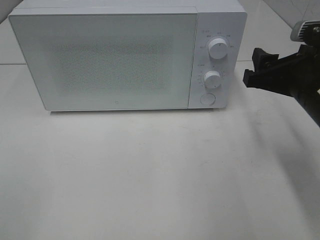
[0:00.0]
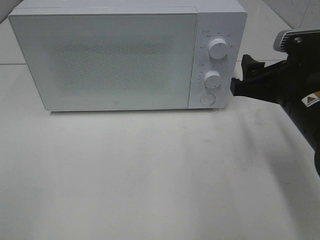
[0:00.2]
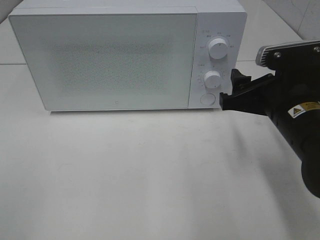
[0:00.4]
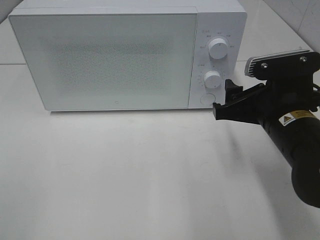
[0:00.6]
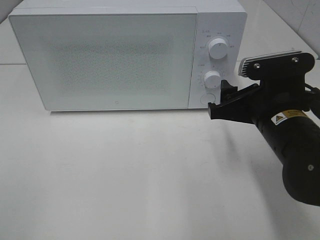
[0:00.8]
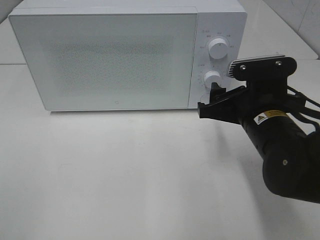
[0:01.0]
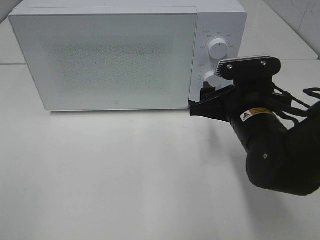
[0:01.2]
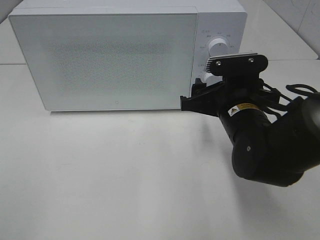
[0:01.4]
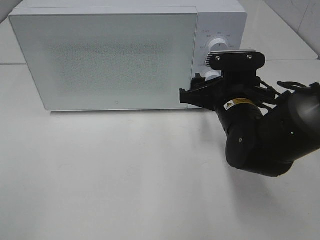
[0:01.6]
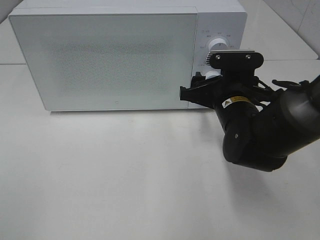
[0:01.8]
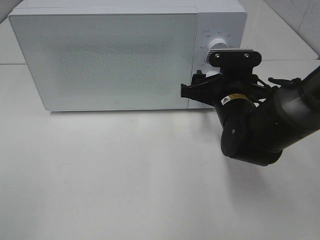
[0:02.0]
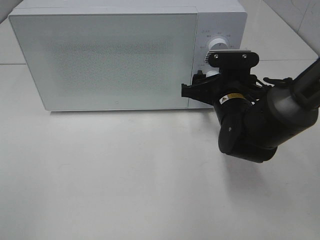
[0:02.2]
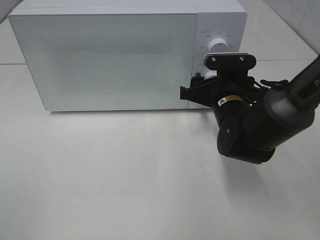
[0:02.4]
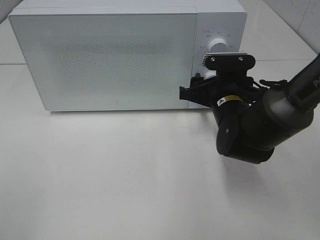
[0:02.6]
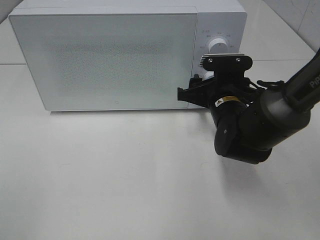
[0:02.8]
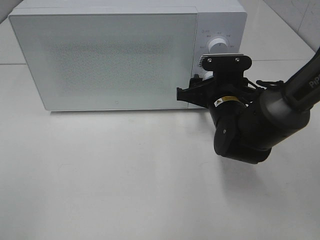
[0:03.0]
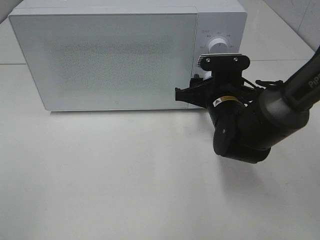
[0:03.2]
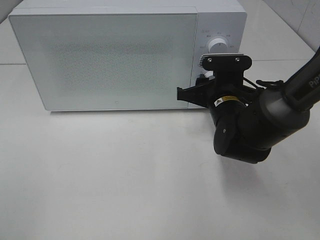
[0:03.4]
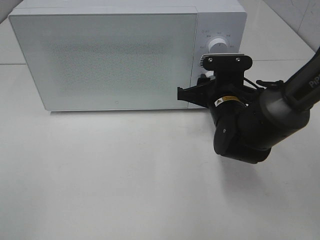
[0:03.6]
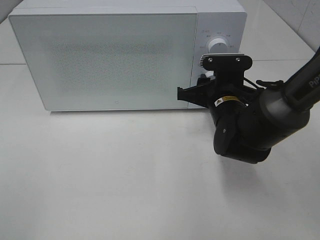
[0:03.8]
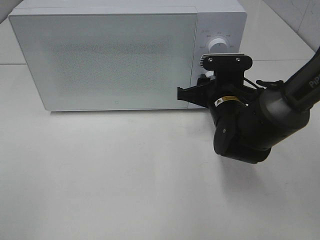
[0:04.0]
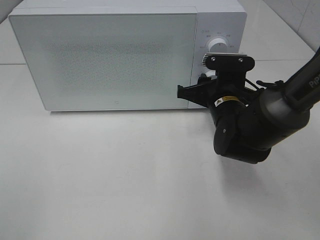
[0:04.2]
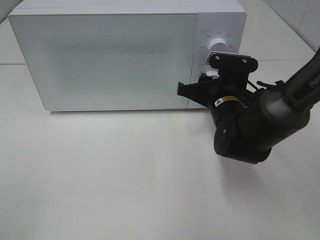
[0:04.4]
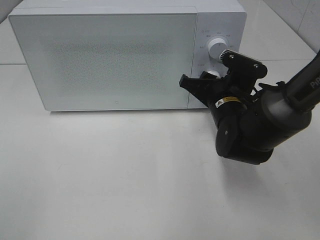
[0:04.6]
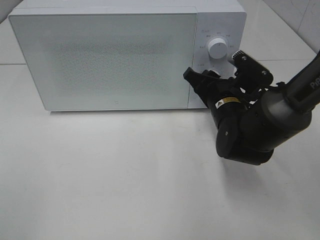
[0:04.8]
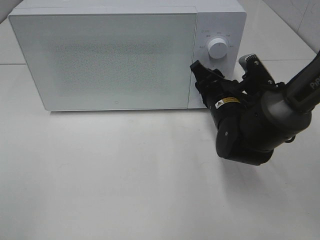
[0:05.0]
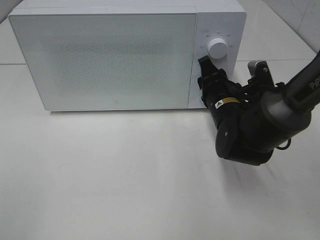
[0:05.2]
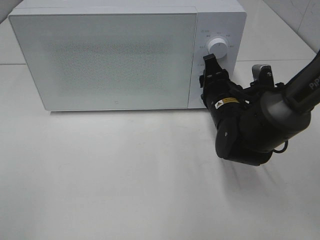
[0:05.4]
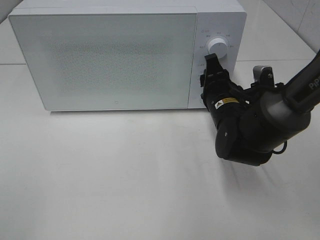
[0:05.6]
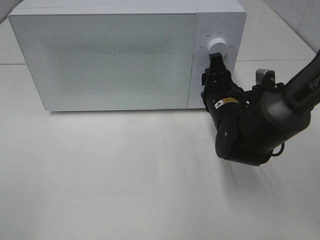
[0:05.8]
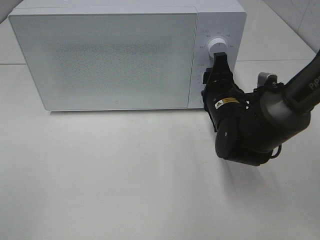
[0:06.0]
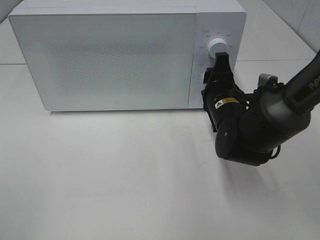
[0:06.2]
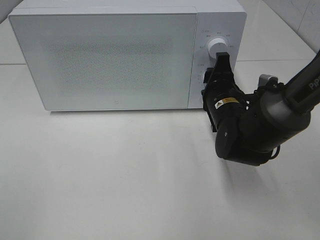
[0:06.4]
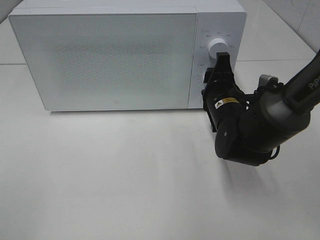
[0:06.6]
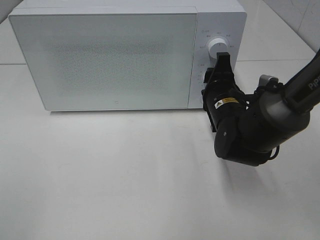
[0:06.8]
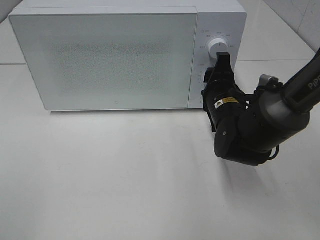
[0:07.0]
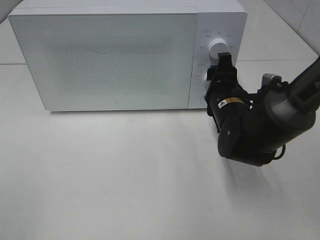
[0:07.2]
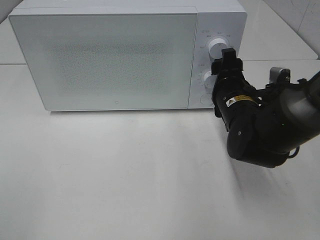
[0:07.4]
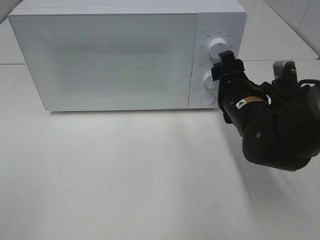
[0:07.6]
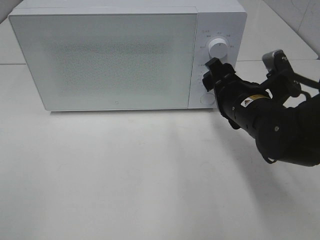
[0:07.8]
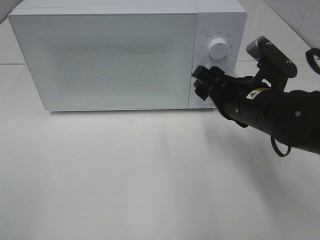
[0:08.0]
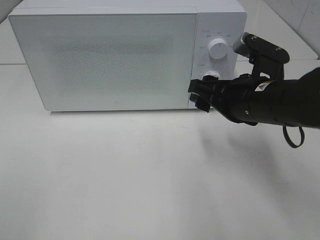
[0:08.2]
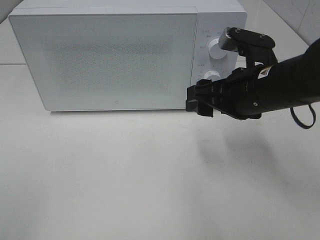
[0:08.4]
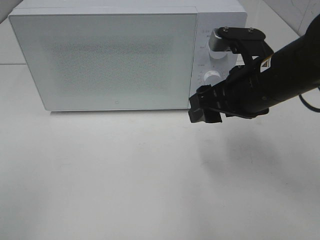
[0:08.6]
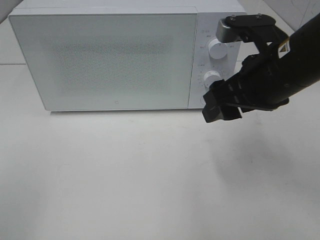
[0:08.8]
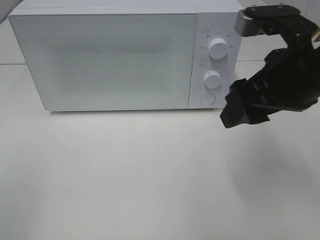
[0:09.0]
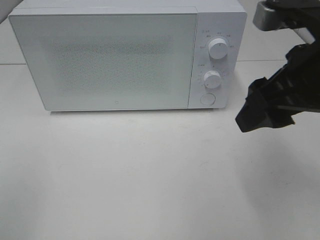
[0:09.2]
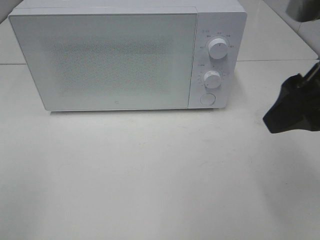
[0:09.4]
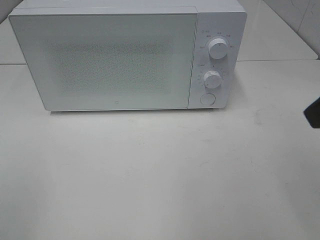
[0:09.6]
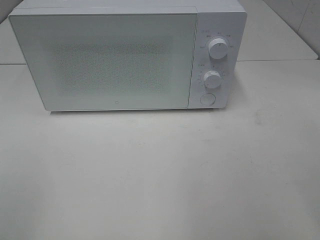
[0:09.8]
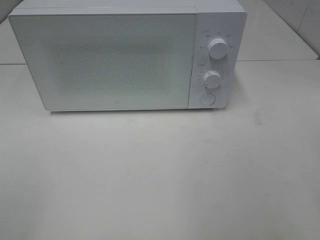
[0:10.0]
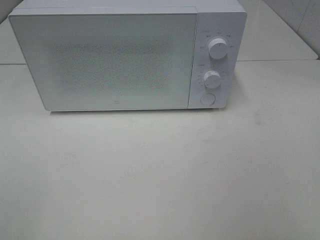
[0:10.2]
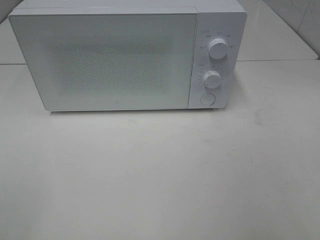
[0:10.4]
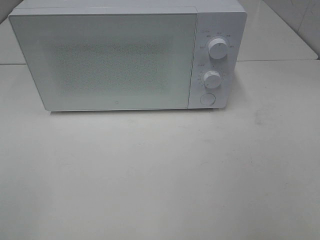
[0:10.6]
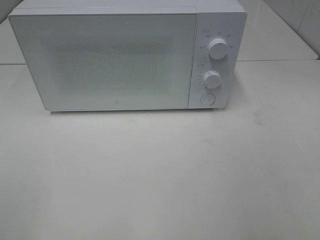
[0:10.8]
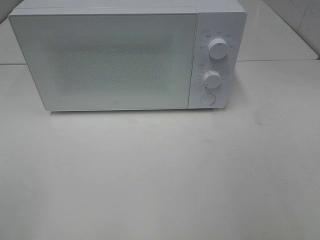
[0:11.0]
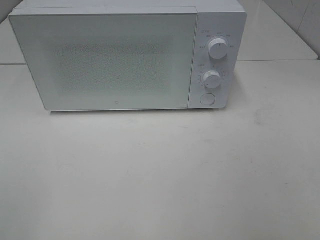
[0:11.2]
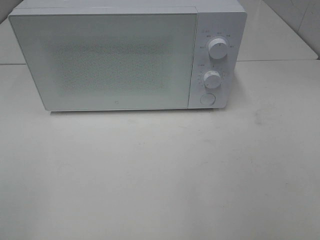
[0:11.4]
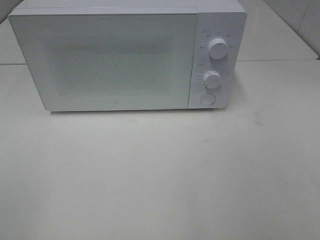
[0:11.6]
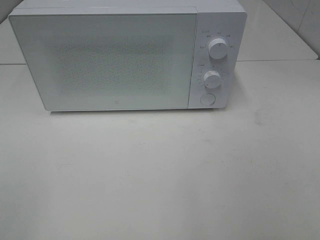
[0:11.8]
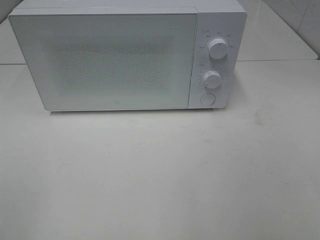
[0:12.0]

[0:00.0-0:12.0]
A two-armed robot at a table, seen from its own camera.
Task of the whole recording: Heat the burger.
Step, 0:00.0 to 0:07.4: Right hand: twist timer button.
0:00.0 to 0:01.6: The right gripper shifts roughly 10 cm to the left, downward and forward.
0:01.6 to 0:04.4: The grippers make only small movements.
0:06.0 to 0:07.6: There are only small adjustments of the grippers.
0:07.6 to 0:09.0: The right gripper heads upward and backward, covering approximately 15 cm.
0:09.0 to 0:10.4: The right gripper shifts approximately 20 cm backward and to the right.

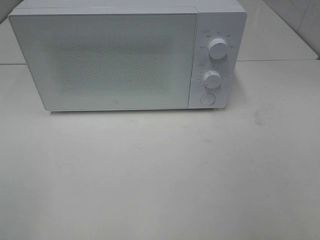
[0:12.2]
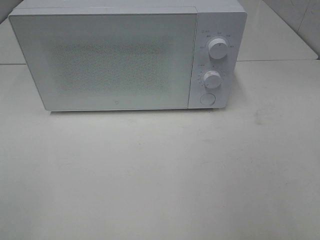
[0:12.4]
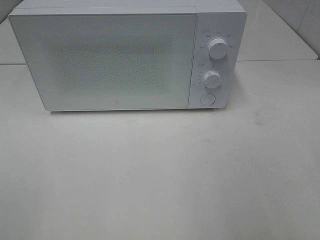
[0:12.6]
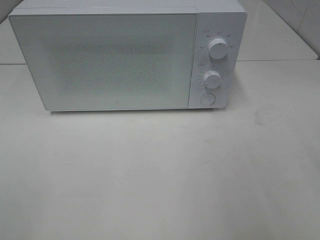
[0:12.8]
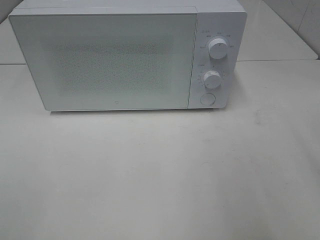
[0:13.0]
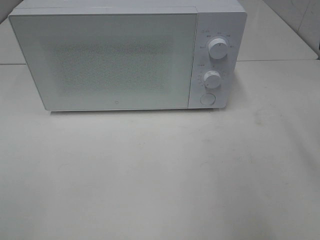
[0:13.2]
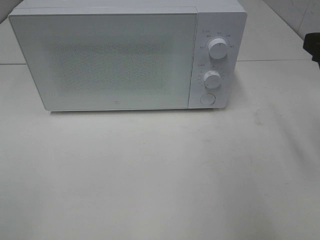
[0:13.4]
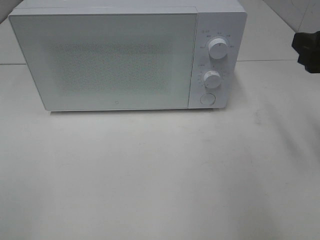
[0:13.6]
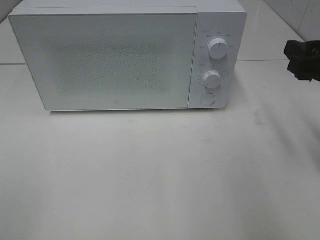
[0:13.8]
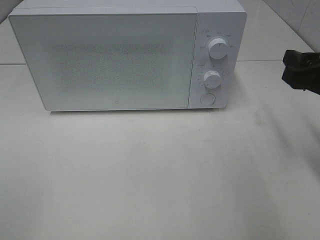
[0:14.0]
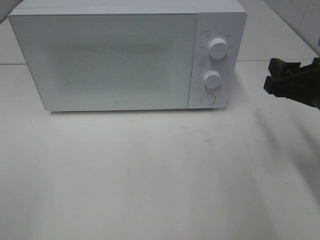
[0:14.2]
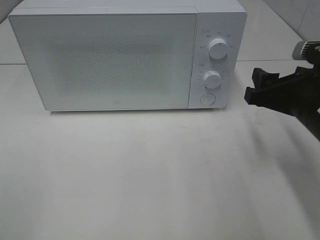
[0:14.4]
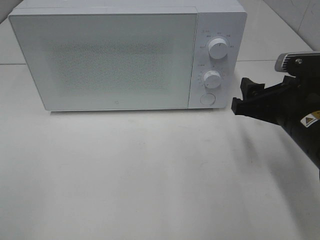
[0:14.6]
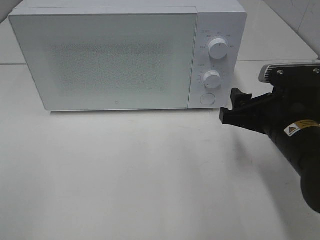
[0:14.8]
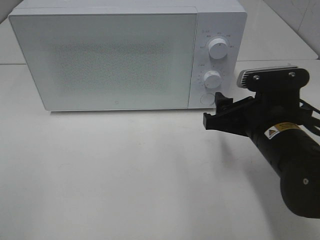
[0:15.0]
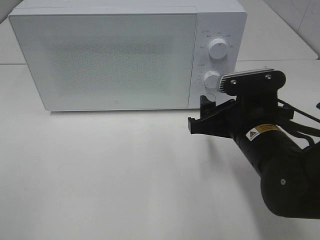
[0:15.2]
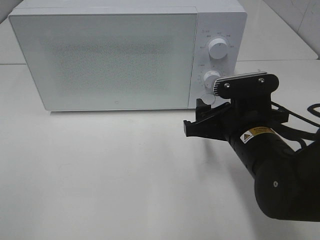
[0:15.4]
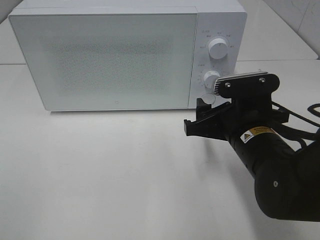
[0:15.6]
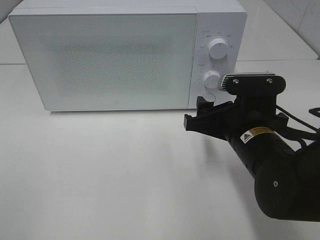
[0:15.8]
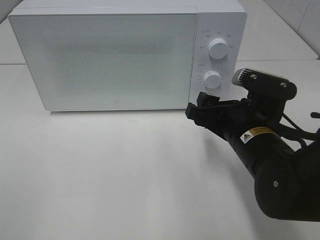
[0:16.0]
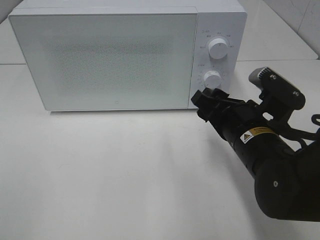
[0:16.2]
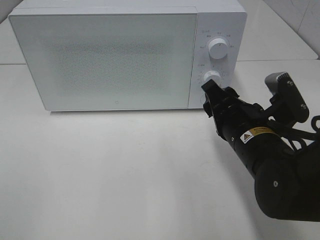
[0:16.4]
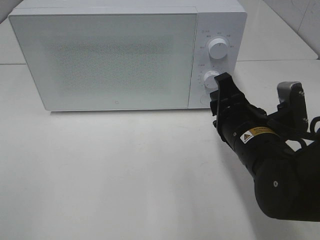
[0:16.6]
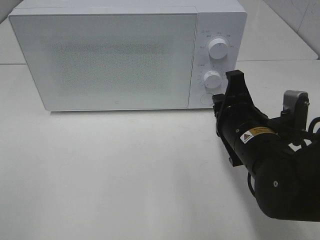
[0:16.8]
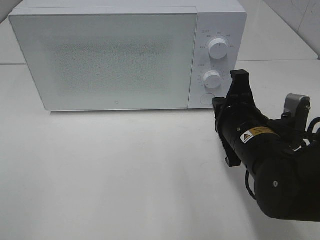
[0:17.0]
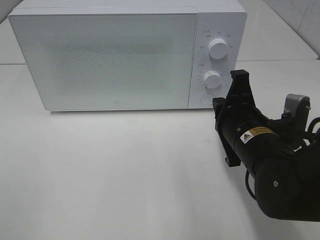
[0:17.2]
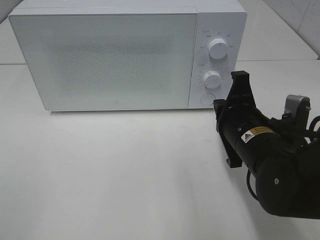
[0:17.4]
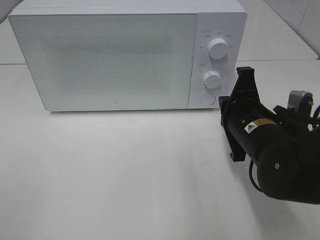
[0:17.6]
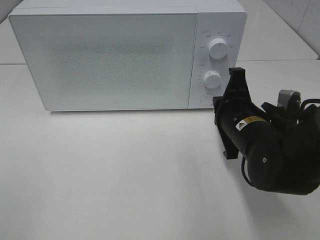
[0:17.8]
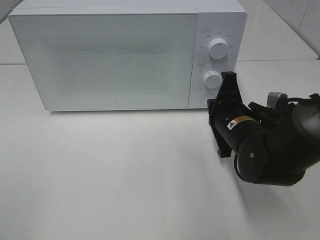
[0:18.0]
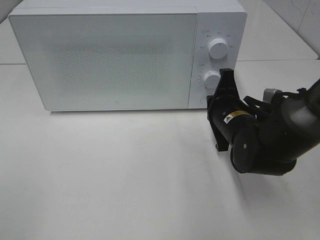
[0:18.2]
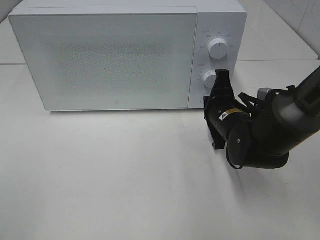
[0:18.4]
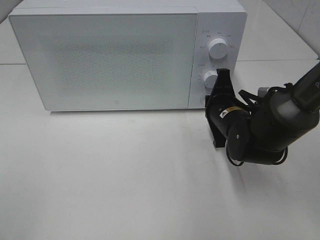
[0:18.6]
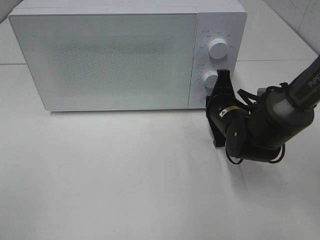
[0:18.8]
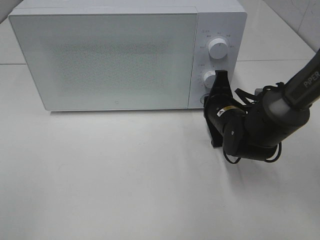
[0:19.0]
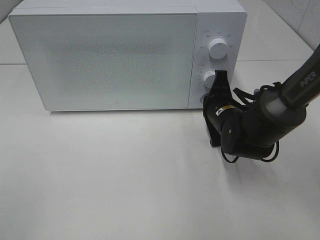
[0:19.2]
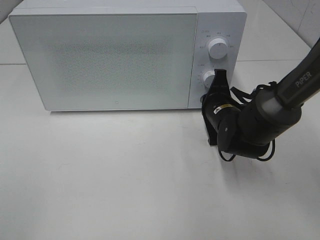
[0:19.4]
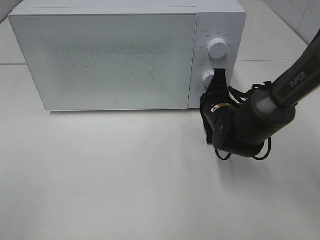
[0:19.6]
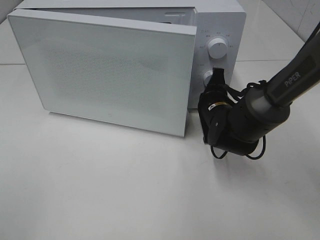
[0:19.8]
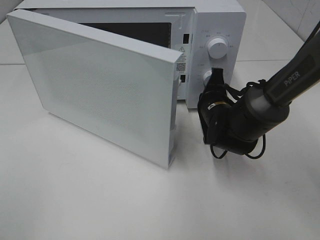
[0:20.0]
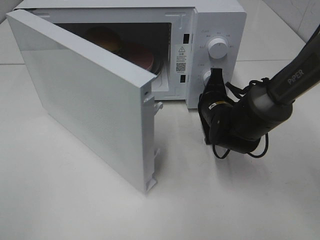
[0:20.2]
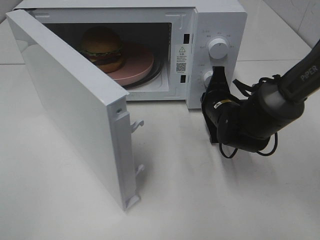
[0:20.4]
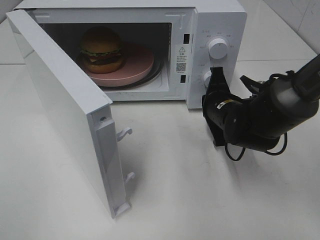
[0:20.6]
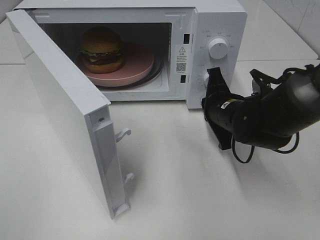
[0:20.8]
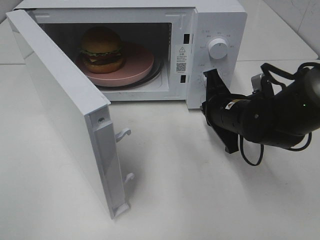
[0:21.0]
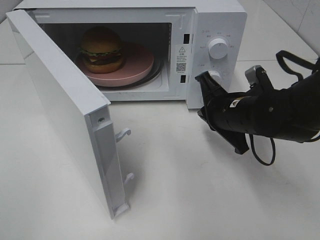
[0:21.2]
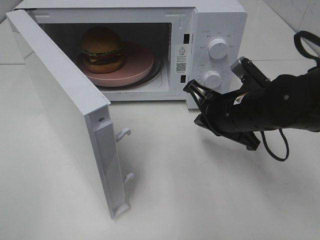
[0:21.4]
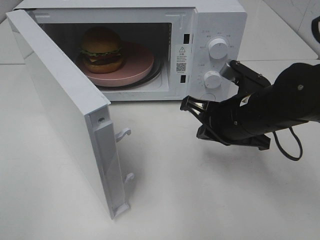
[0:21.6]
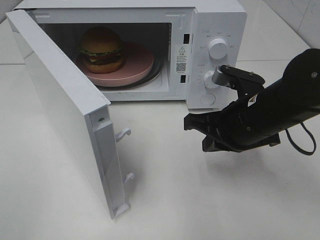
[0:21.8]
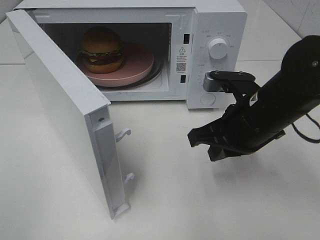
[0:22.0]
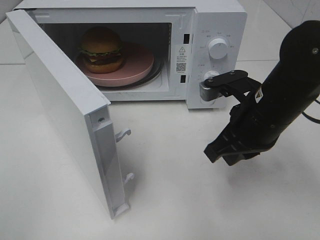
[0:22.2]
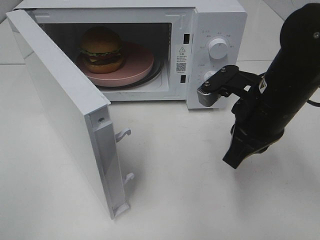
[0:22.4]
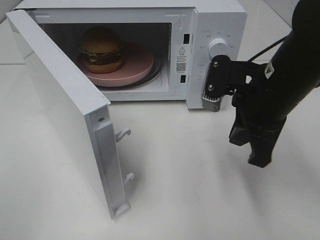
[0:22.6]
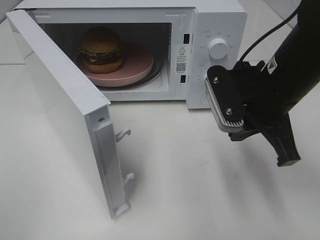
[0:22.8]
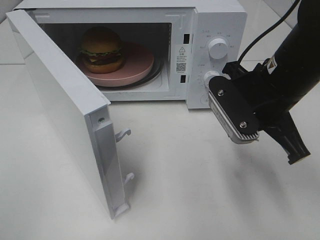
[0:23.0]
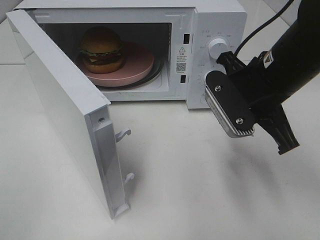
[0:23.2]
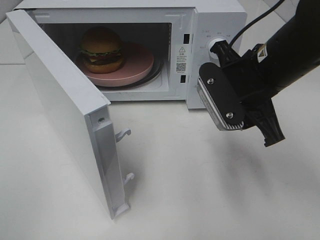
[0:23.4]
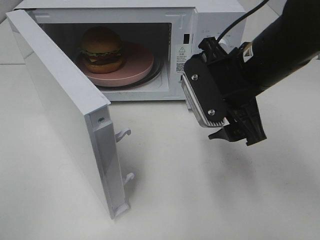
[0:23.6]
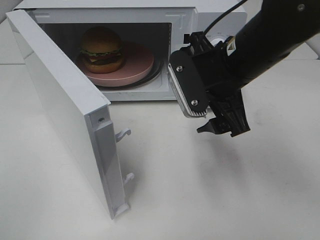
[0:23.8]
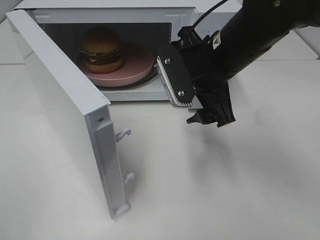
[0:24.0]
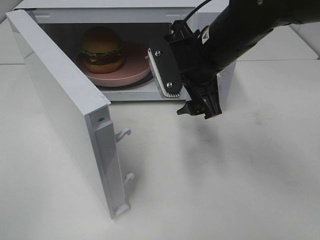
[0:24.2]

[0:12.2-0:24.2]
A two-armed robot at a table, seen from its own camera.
Task of the whole recording: Heat the burger.
Step, 0:12.2 to 0:20.8: Right hand: press the switch.
0:12.2 to 0:13.8: The right gripper moves forward, some 20 cm.
0:13.8 to 0:15.2: The right gripper heads to the left and downward, covering some 15 cm.
0:15.2 to 0:16.6: The right gripper closes up.
0:16.6 to 0:18.2: The right gripper goes about 10 cm forward, and closes its fingers.
0:18.2 to 0:19.8: The right gripper moves forward, roughly 5 cm.
0:19.8 to 0:21.2: The right gripper heads backward and upward, covering about 10 cm.
0:21.2 to 0:22.6: The right gripper moves upward, roughly 10 cm.
0:22.6 to 0:24.2: The right gripper heads to the left and forward, covering some 10 cm, and opens up.
